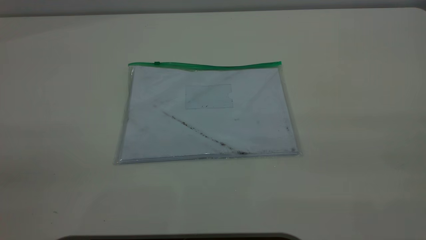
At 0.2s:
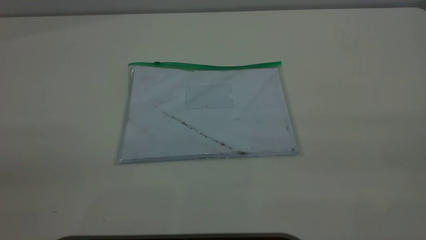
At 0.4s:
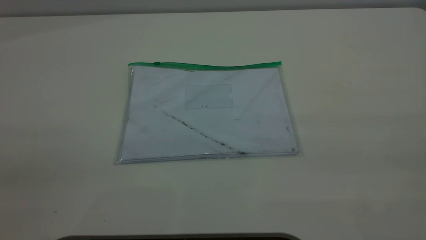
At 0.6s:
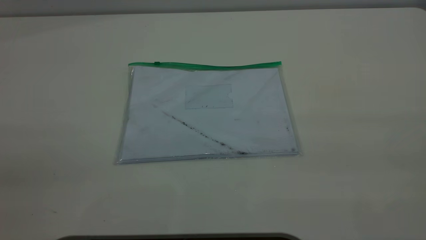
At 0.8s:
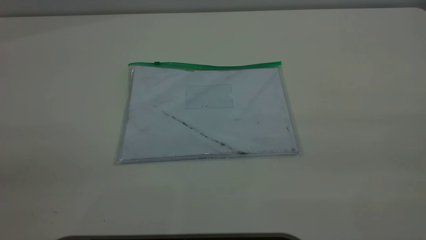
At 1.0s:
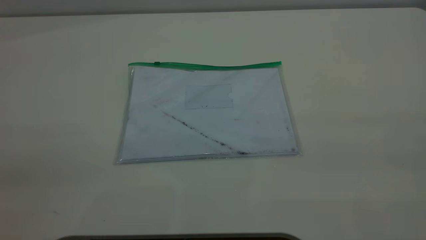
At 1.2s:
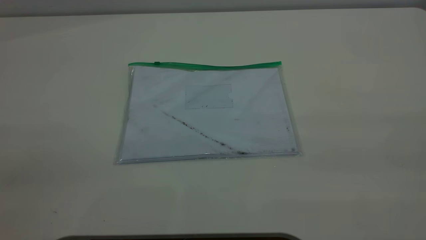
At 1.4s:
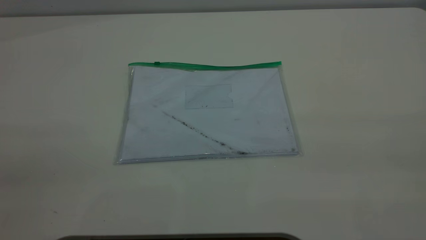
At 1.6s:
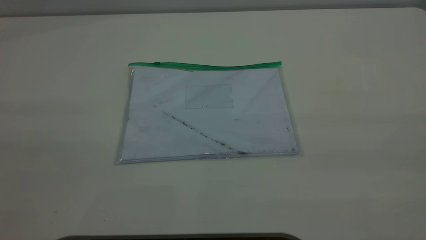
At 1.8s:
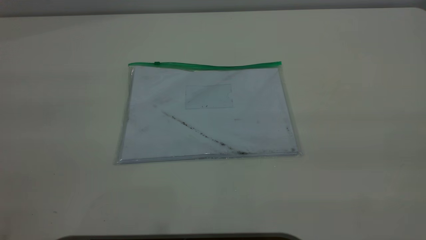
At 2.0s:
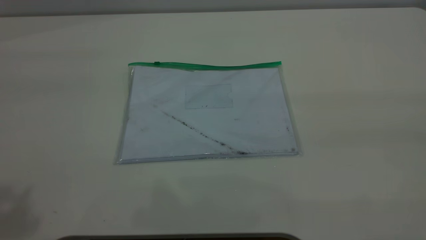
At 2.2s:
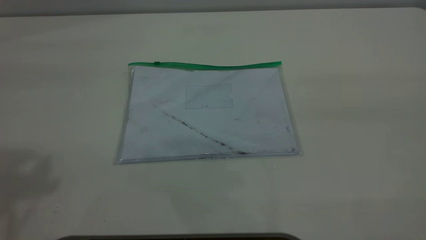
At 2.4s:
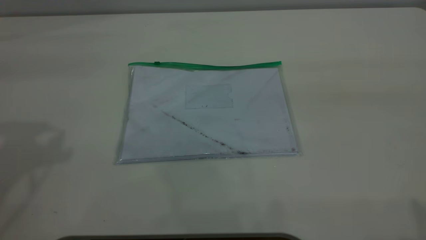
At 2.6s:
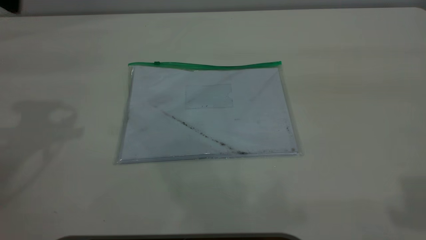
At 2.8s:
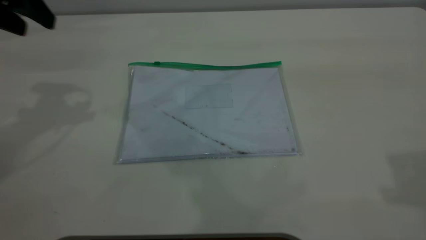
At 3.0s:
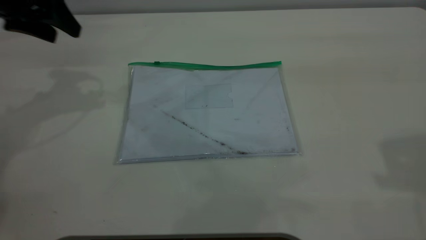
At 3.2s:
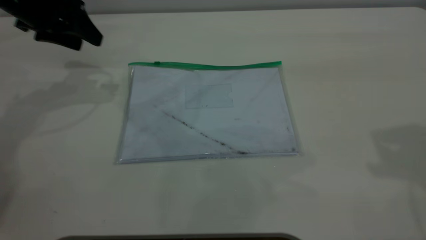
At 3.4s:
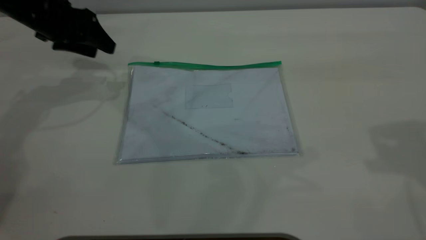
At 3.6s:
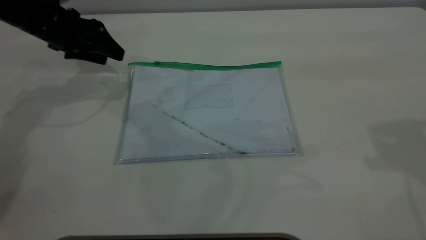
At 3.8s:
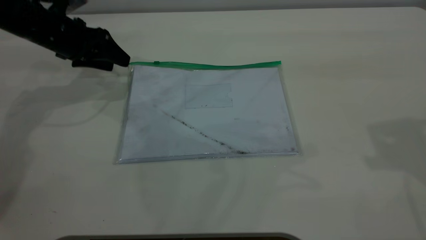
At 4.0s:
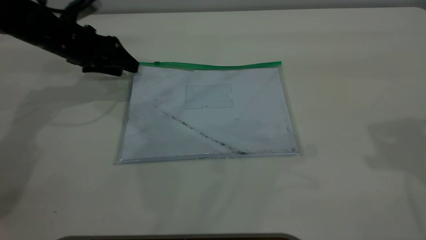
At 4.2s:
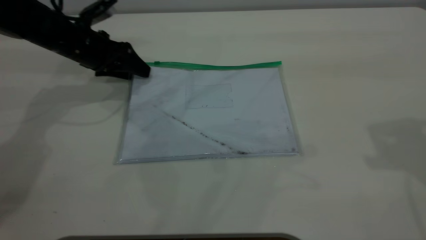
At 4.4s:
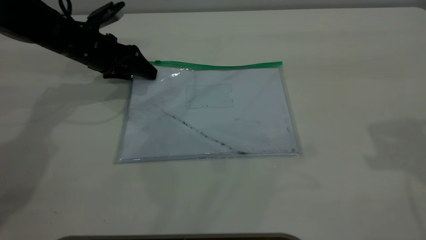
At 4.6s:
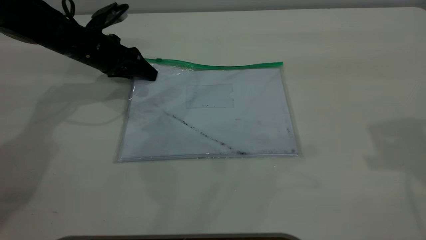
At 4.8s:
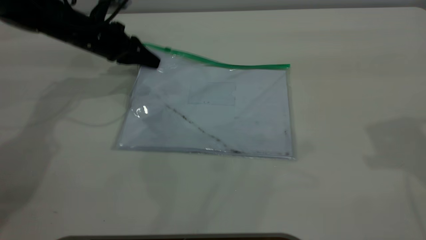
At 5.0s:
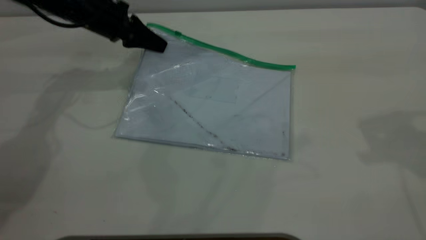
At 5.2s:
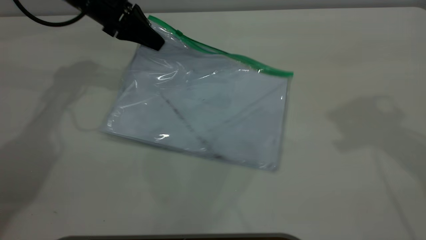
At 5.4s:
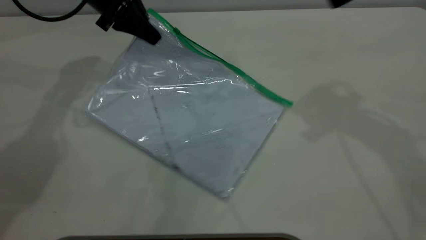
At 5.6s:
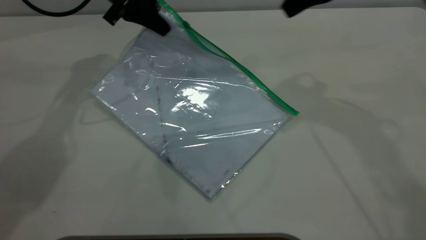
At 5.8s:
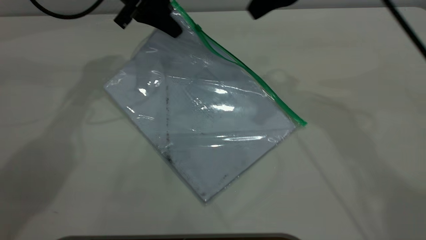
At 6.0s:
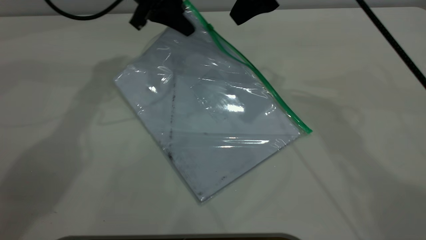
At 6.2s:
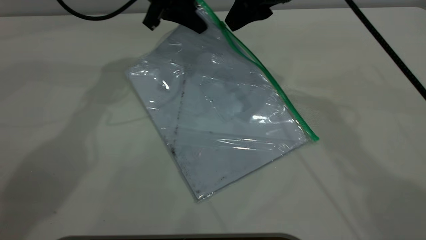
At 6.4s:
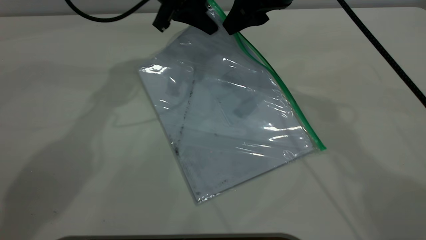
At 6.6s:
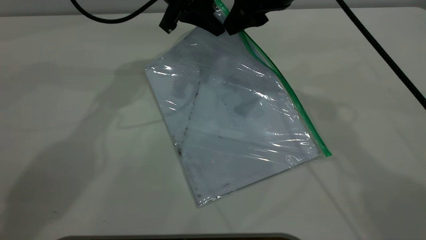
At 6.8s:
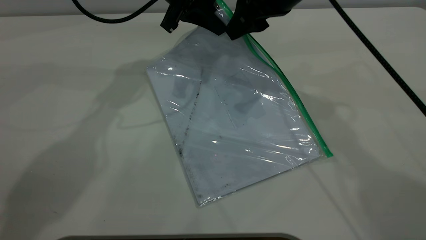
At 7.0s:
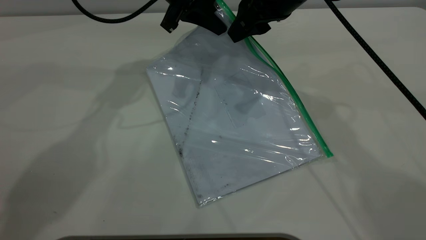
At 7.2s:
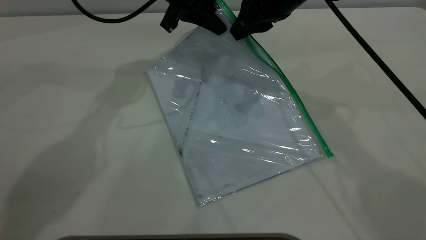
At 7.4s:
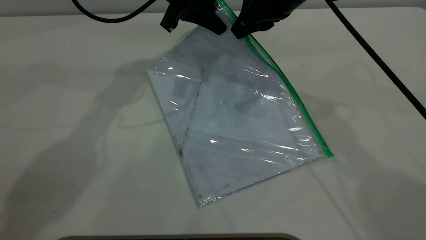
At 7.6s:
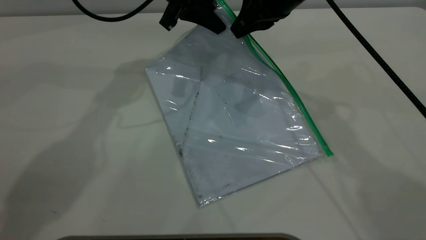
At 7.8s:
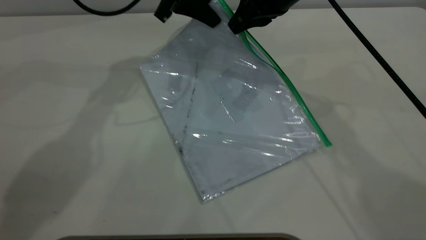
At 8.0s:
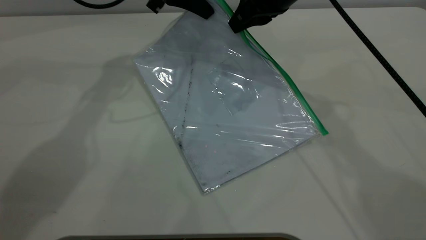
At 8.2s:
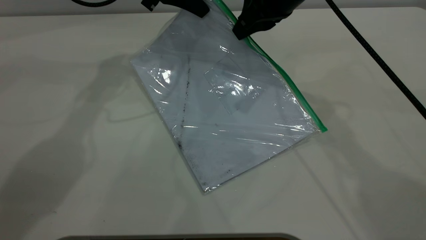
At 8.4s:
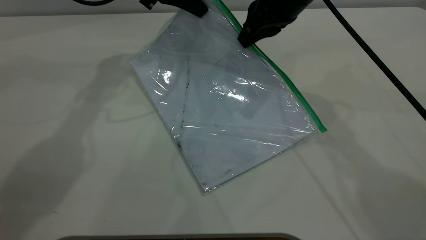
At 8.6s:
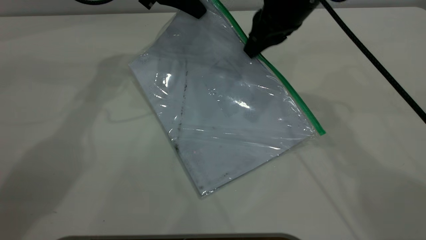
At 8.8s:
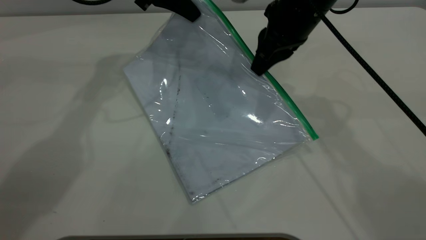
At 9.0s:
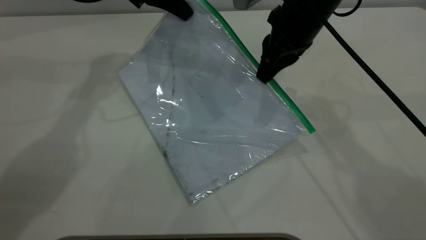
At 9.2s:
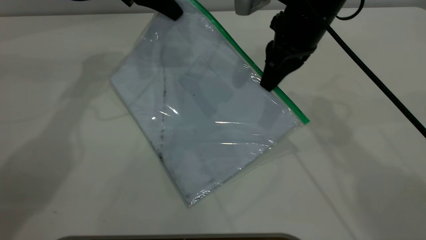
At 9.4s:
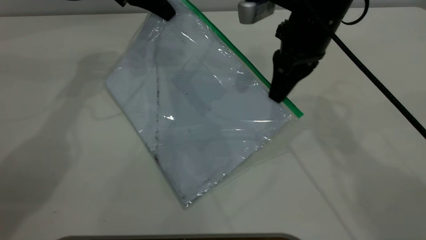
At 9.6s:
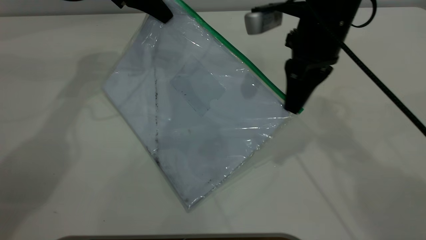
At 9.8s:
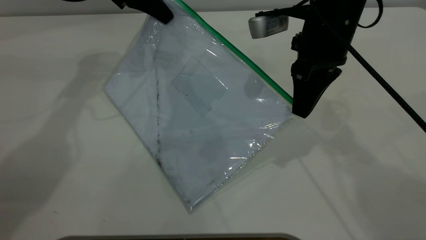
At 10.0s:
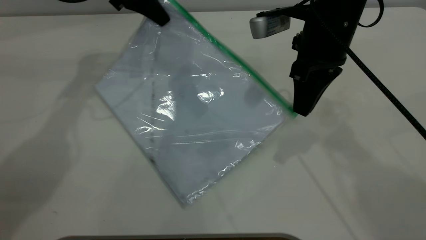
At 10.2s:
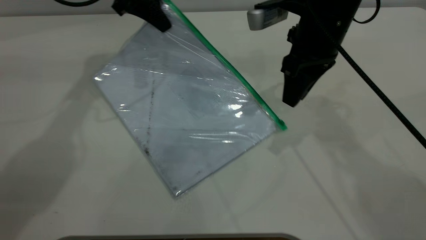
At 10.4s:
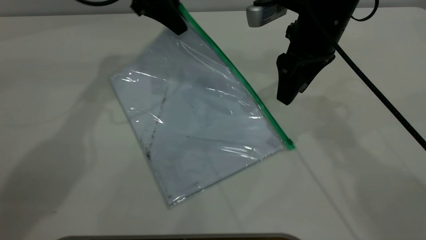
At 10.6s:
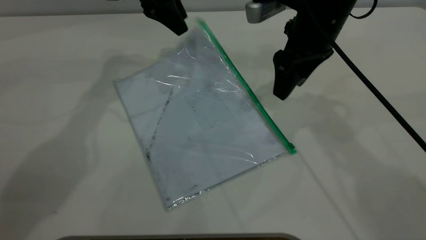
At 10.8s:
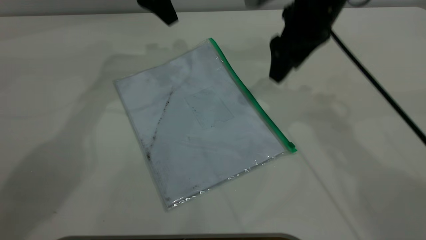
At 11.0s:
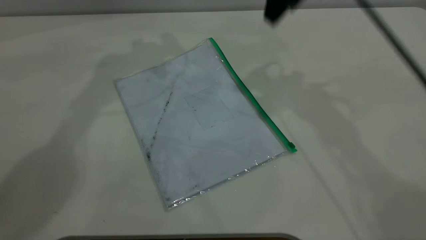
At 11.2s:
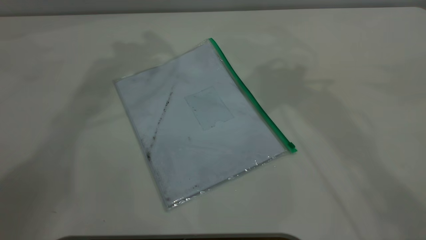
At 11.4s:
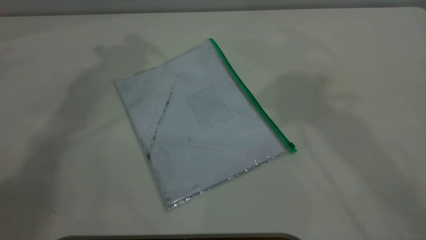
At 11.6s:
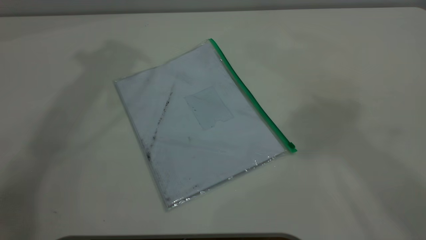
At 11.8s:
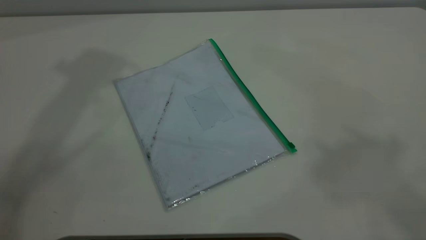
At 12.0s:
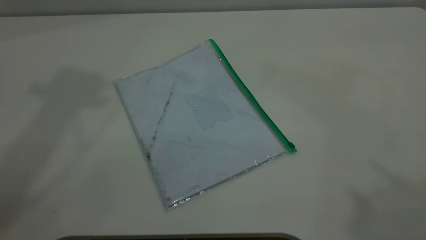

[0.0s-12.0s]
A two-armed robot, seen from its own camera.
Step, 0.0s to 4.8s: Pick up the transparent plastic bag with the left gripper.
Step, 5.0s to 10.0s: Pulling up the zipper on the transparent plastic bag with the right gripper to close it.
Step, 10.2s to 10.8s: Place the transparent plastic bag.
1.6s to 3.0s: The left gripper travels forward and downward by approximately 40 cm.
3.0s to 4.4s: The left gripper travels downward and to the right by roughly 15 cm.
4.4s to 6.0s: The right gripper shifts approximately 25 cm to the left, forward and downward. Meanwhile the left gripper travels upward and to the right by roughly 15 cm, and closes up.
6.0s to 7.6s: The right gripper closes its fingers.
7.6s to 9.0s: The left gripper shifts about 5 cm to the left.
9.0s to 10.4s: The right gripper opens its fingers, while the left gripper opens its fingers.
10.4s to 12.0s: The two grippers go some 50 cm upward and backward. The left gripper opens up.
